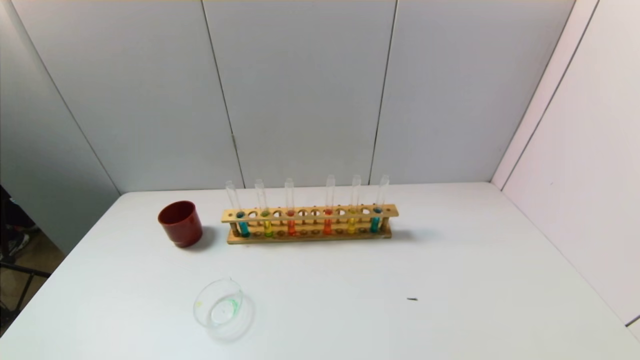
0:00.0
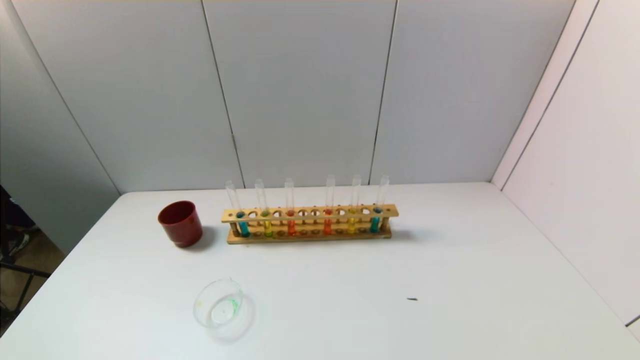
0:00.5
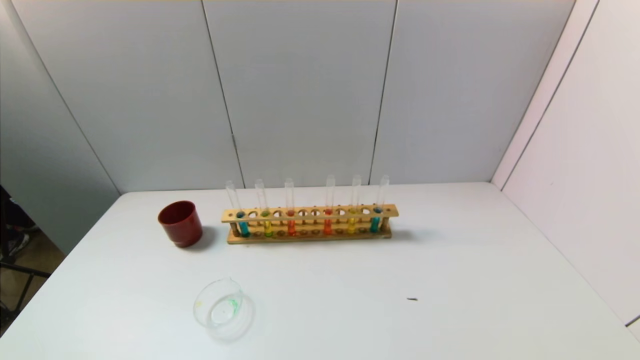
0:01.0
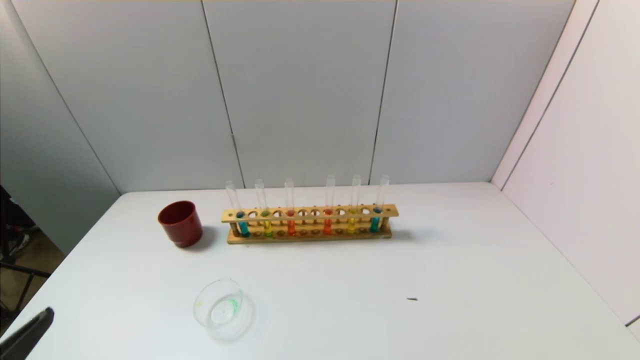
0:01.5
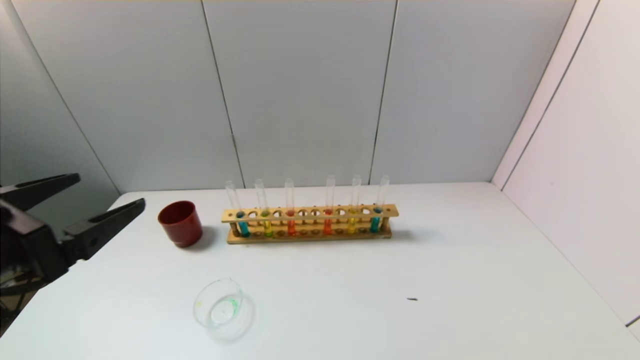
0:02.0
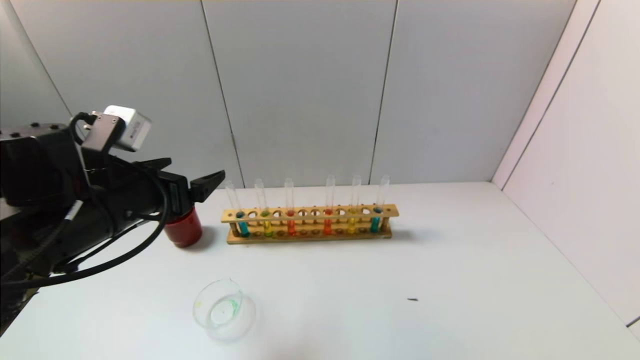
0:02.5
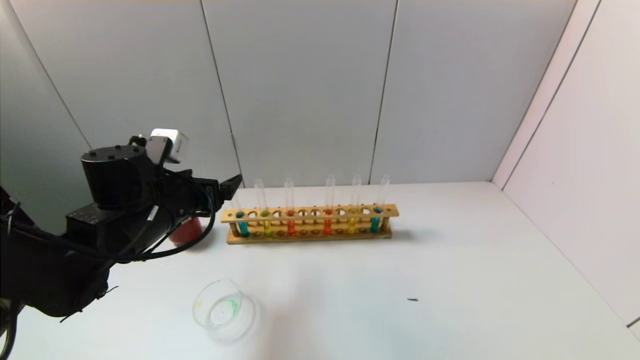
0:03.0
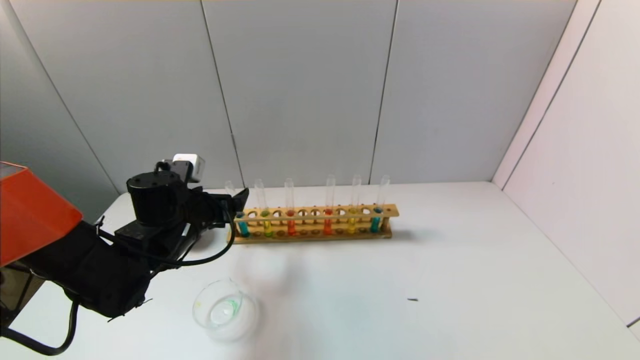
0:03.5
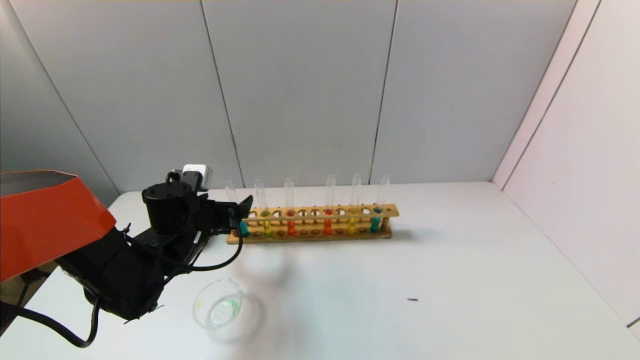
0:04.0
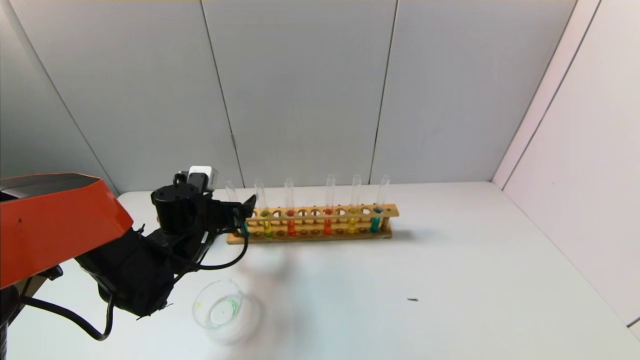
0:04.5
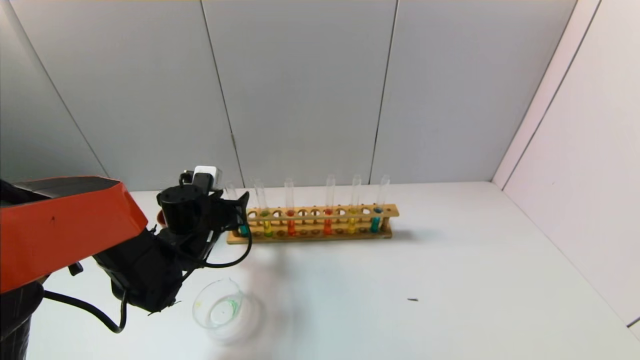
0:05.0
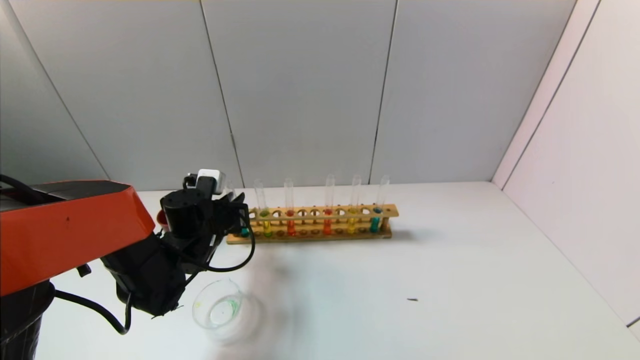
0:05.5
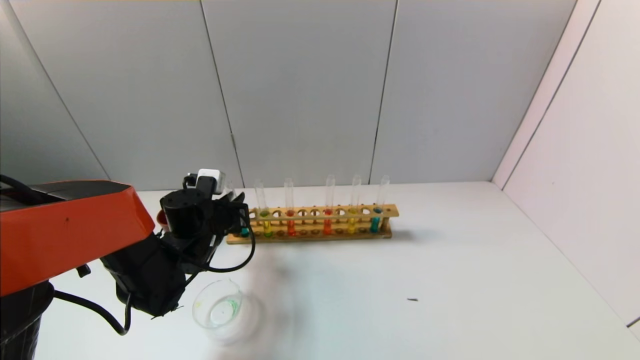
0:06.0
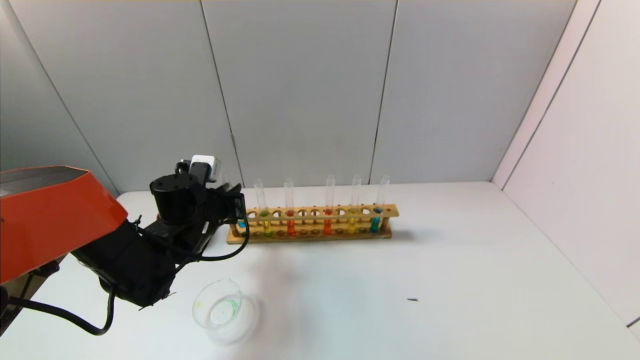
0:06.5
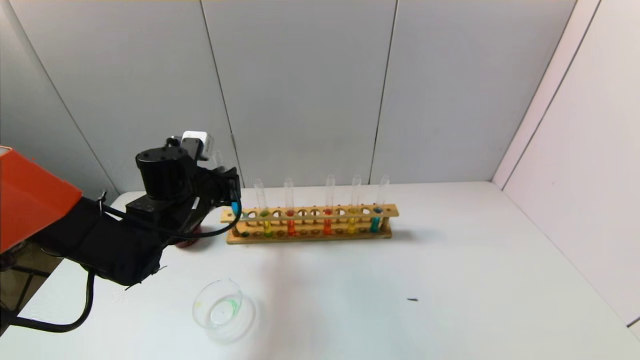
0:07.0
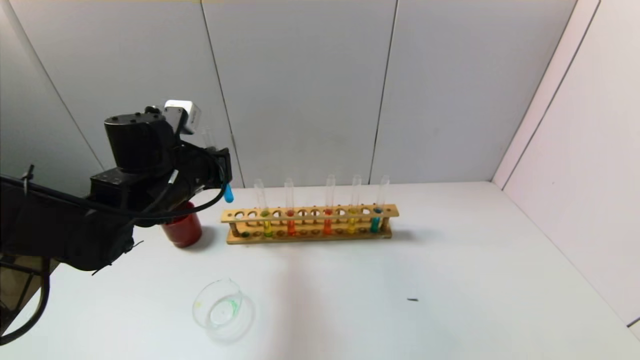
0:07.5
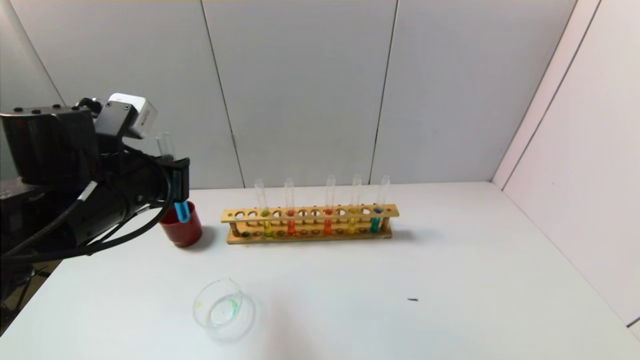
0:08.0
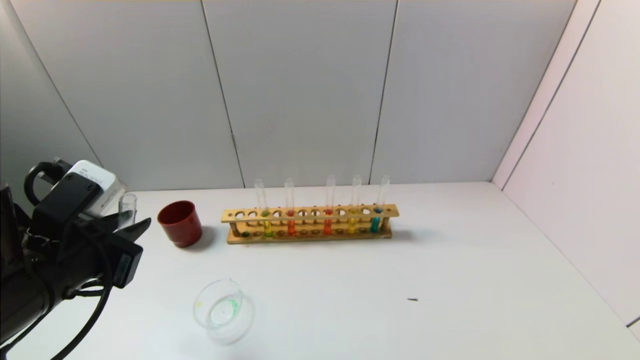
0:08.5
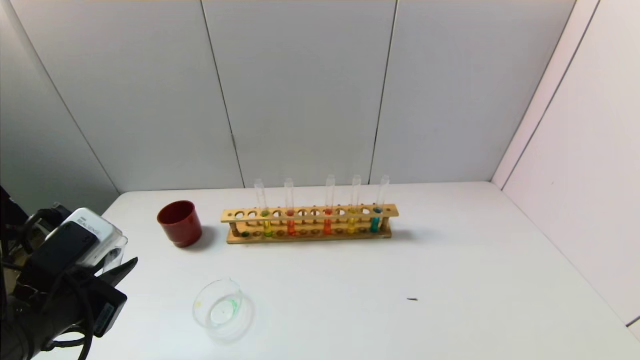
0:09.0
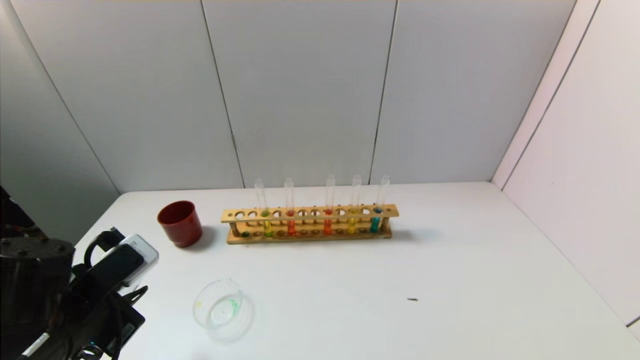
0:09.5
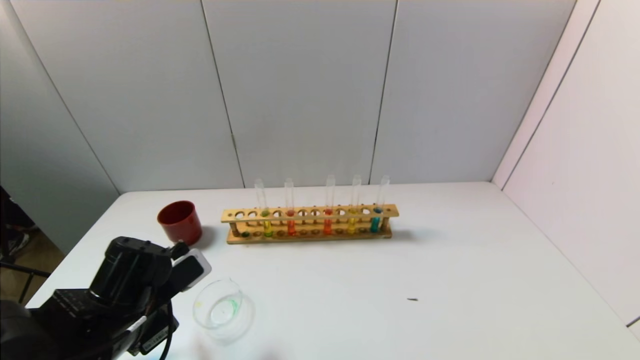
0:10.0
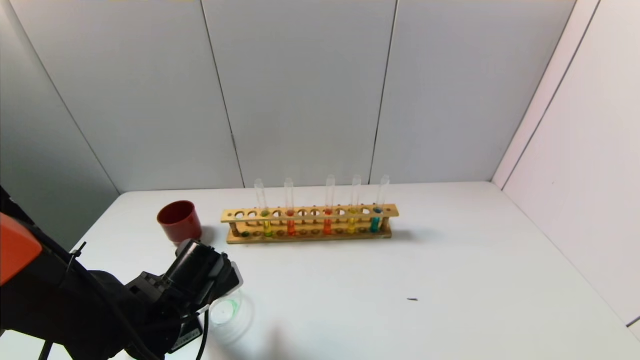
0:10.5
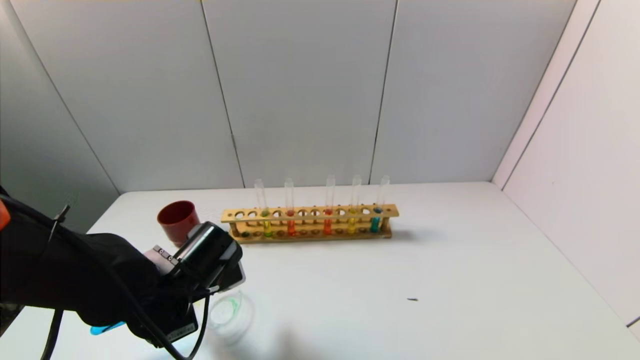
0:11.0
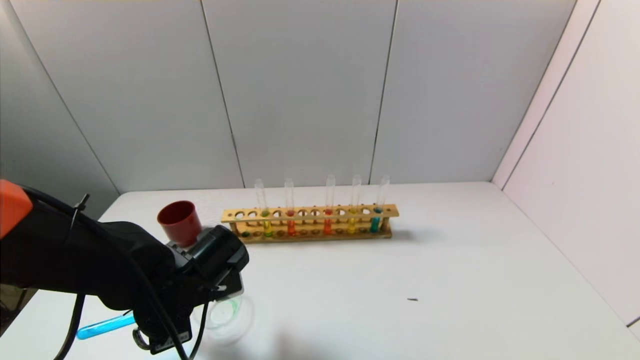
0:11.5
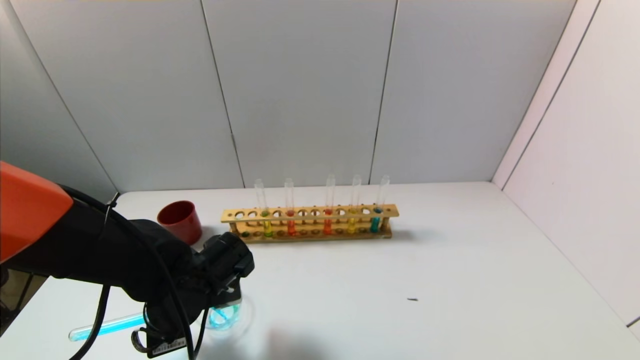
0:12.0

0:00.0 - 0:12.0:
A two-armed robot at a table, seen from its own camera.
Task of the whole recording: pick up the test tube with yellow pigment and the test tube with blue pigment by grippers and pour them into the beaker.
Step, 0:00.0 - 0:05.0: Grasp the blue reagent with the left gripper.
0:00.0 - 0:02.0: The left gripper shifts about 25 cm upward and forward.
0:02.0 - 0:04.0: The left gripper goes some 25 cm forward and downward.
0:04.0 - 0:06.0: The left gripper closes up.
0:06.0 - 0:08.0: The left gripper heads upward and backward, covering roughly 20 cm.
0:08.0 - 0:10.0: The left gripper shifts roughly 15 cm downward.
0:10.0 - 0:12.0: The left gripper shifts by roughly 5 cm.

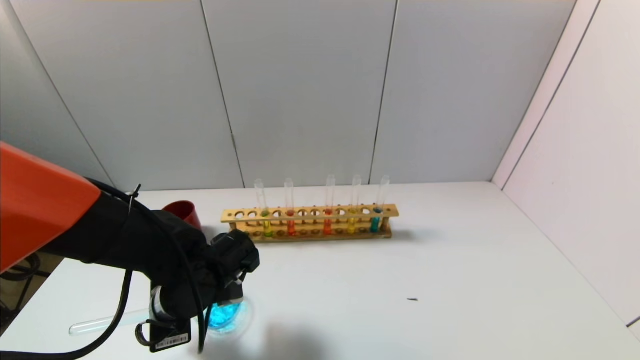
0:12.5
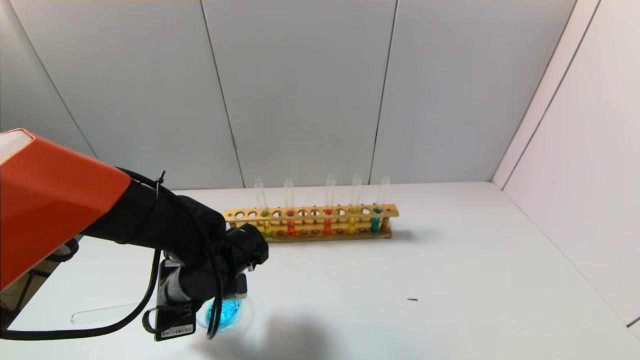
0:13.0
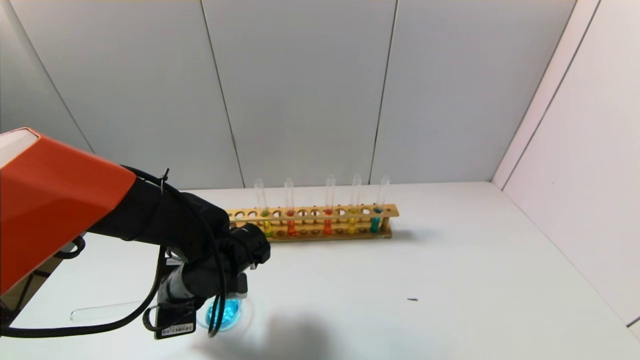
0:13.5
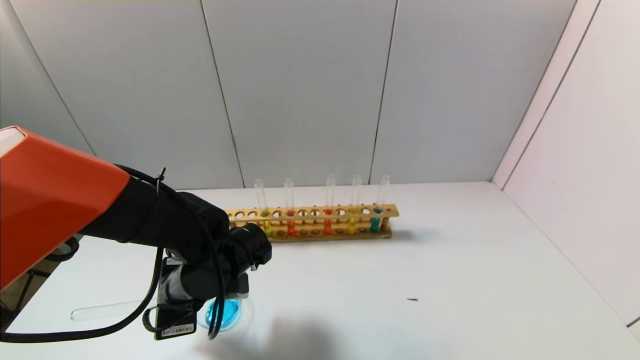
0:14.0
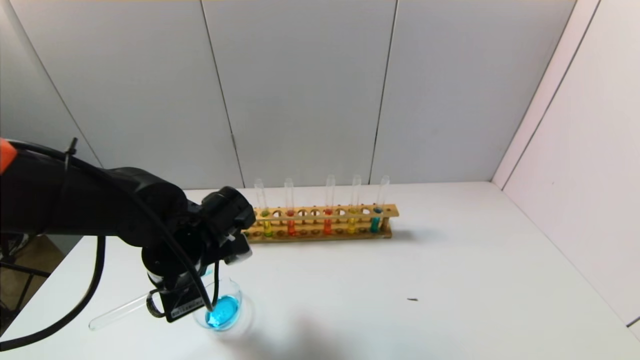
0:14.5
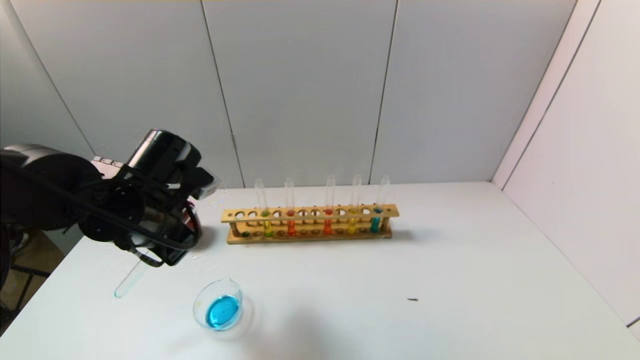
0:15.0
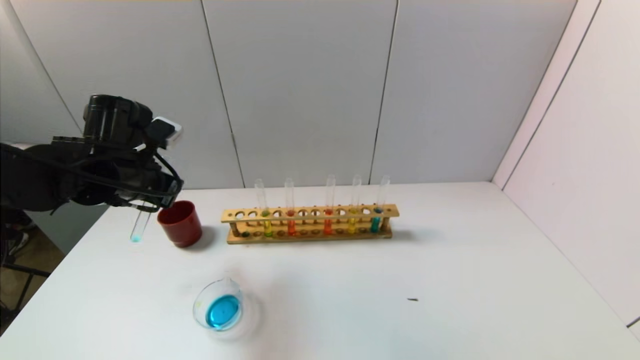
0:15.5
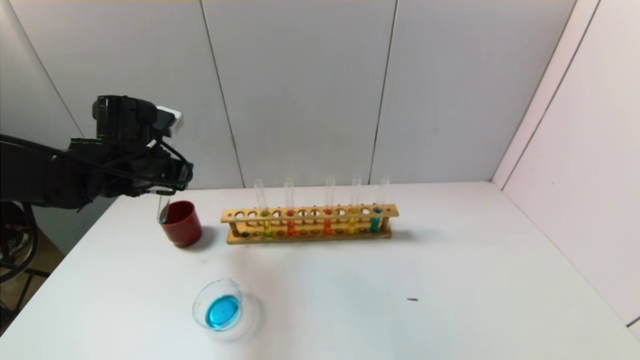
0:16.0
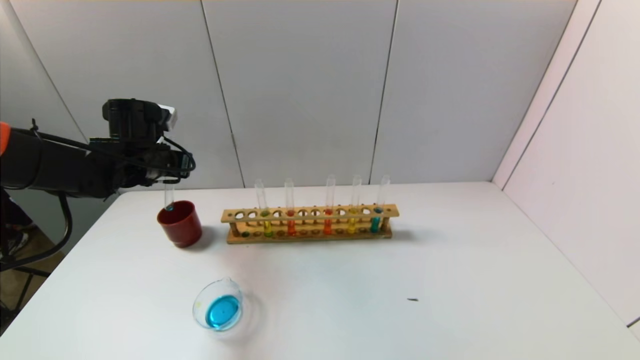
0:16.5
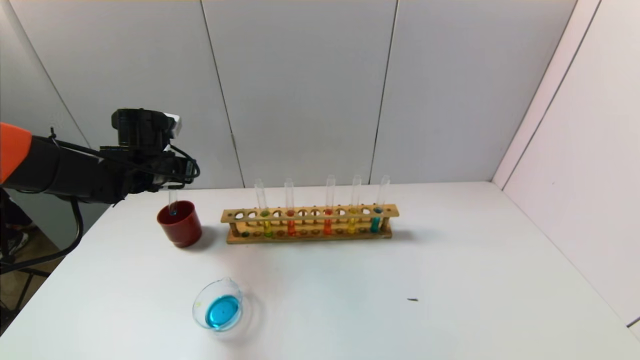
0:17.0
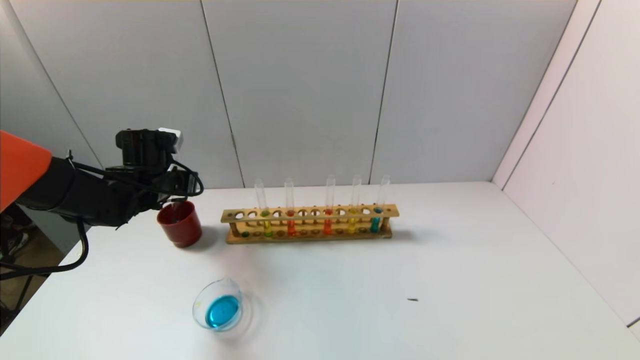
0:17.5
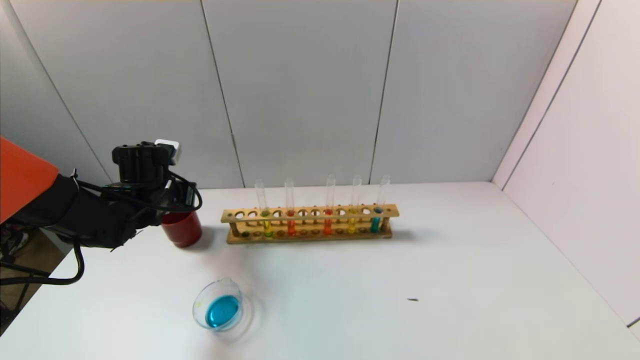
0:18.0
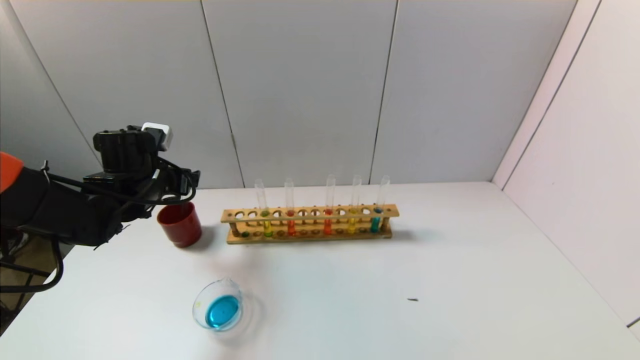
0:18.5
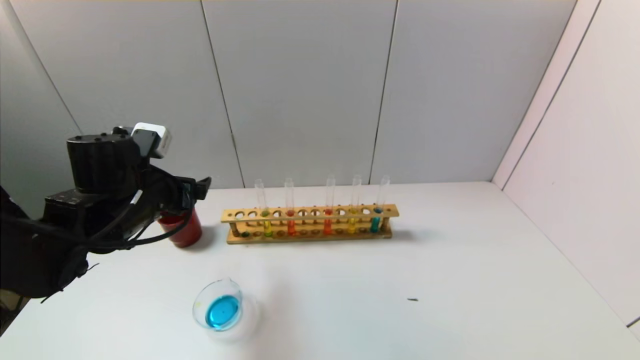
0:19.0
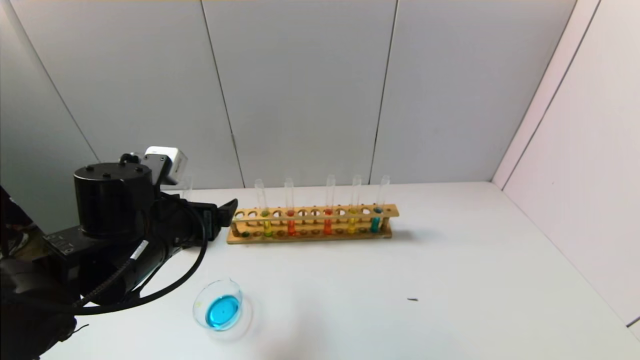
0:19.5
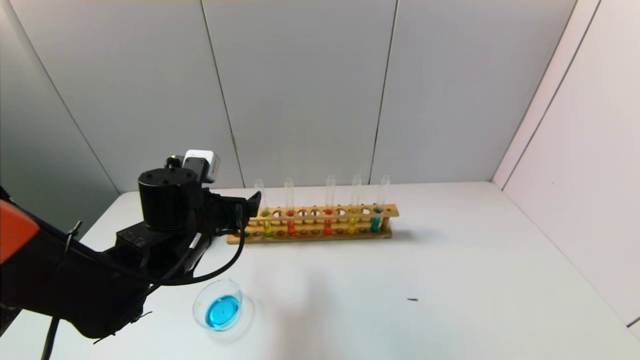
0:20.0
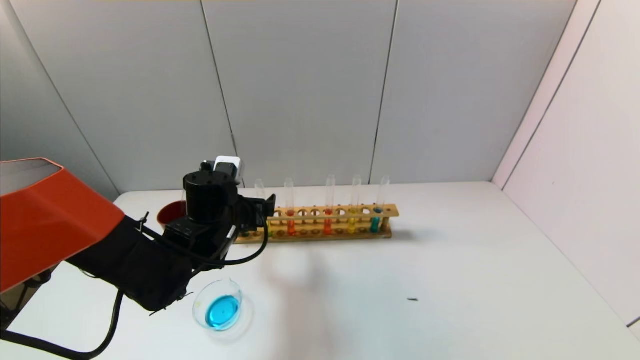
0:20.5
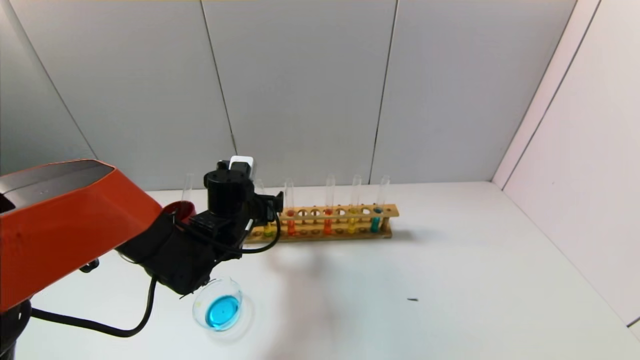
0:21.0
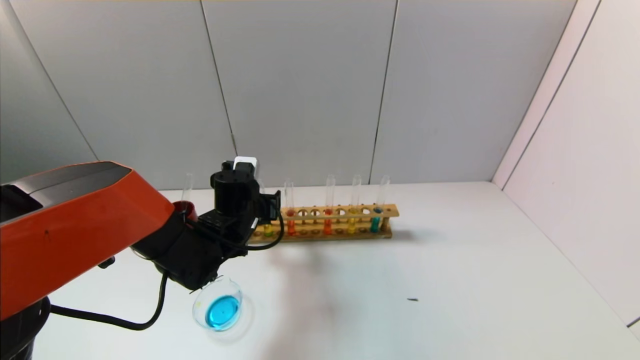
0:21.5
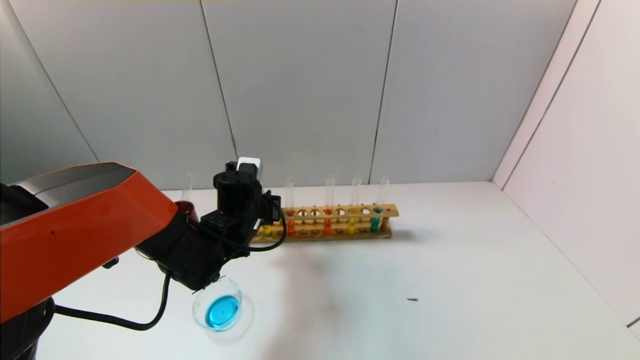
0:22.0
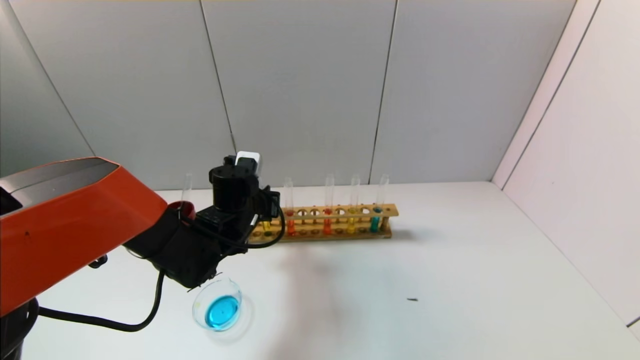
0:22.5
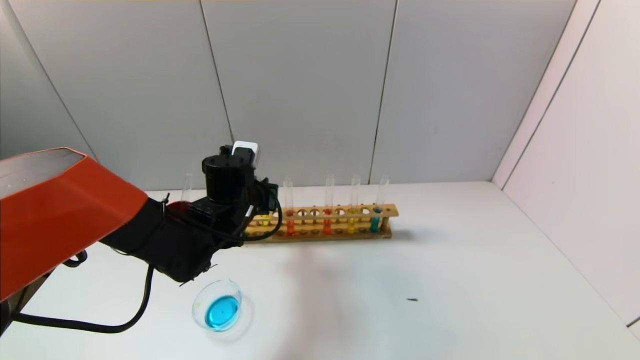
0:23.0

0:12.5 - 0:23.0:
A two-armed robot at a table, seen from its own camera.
Task of the whole recording: pick up the test tube with yellow pigment and the test tube with blue pigment by grippers and pour them into the beaker.
Step, 0:14.5 - 0:18.0: Place the test tube into the brown cup with the left gripper.
Step, 0:18.5 - 0:22.0: Grasp the yellow reagent with the left gripper.
0:12.5 - 0:14.5: The left gripper shifts approximately 5 cm upward.
0:14.5 - 0:16.5: The left gripper goes roughly 20 cm forward and to the left.
0:16.5 - 0:19.0: The left gripper travels backward by roughly 10 cm, and opens.
0:19.0 - 0:21.0: The left gripper is displaced to the right, downward and forward by about 15 cm.
0:21.0 - 0:23.0: The left gripper closes up.
